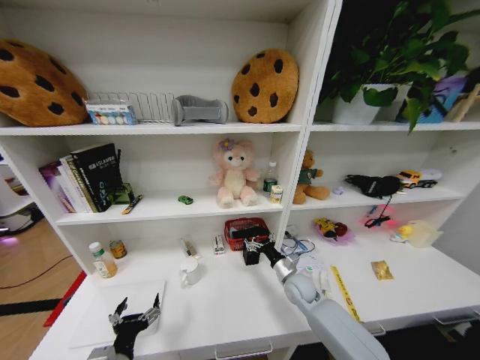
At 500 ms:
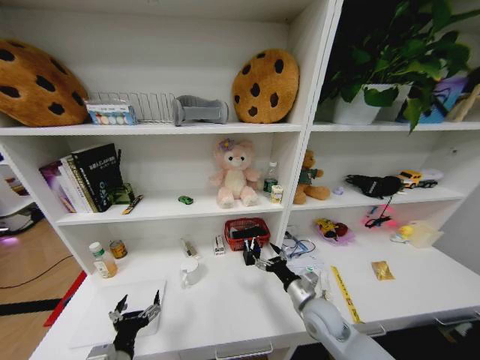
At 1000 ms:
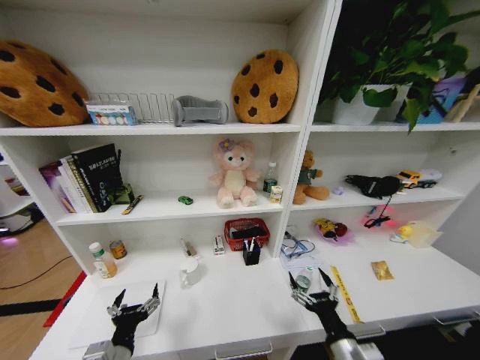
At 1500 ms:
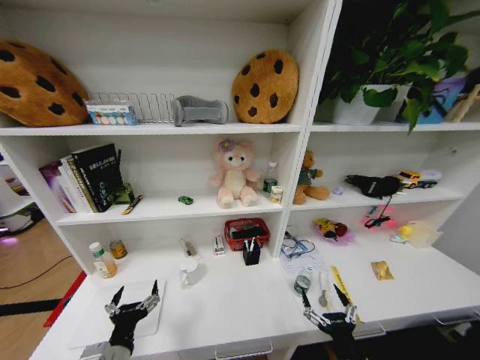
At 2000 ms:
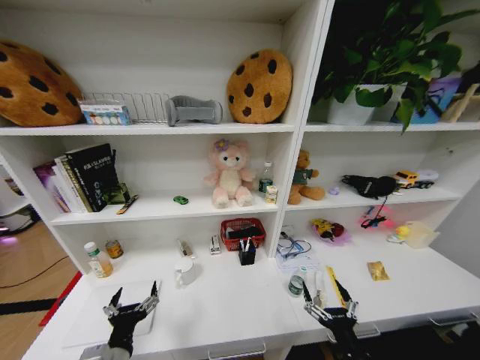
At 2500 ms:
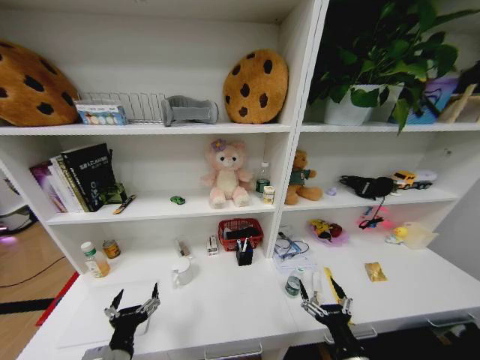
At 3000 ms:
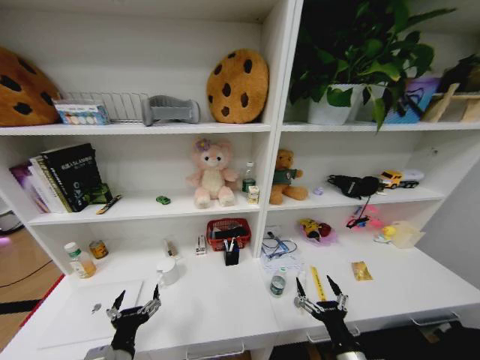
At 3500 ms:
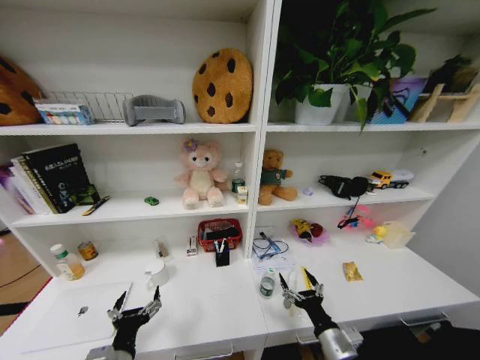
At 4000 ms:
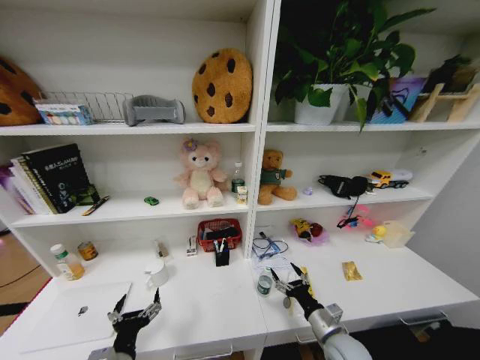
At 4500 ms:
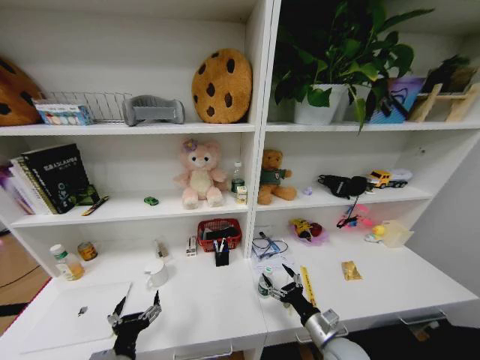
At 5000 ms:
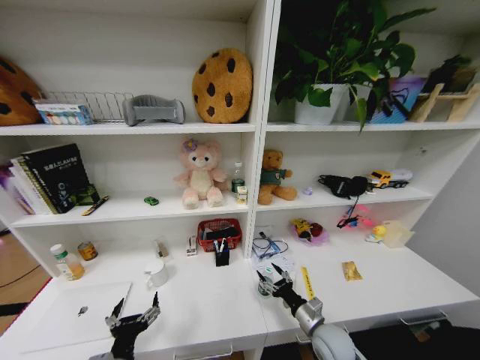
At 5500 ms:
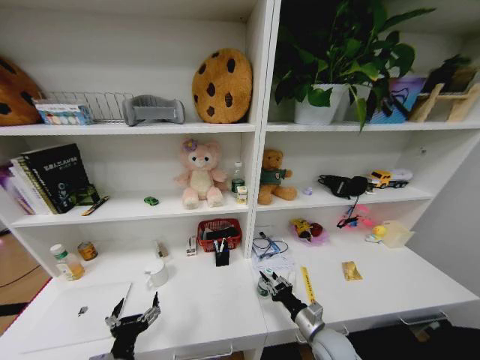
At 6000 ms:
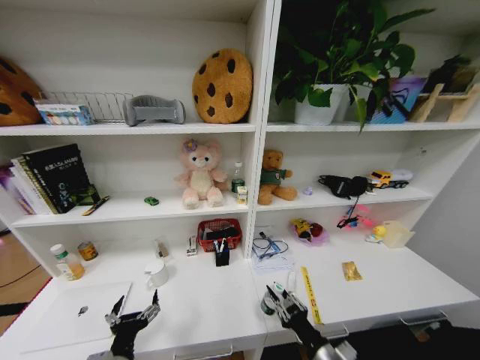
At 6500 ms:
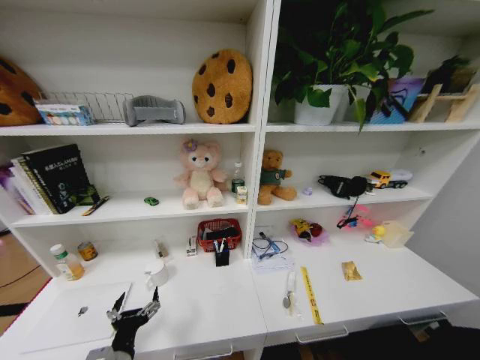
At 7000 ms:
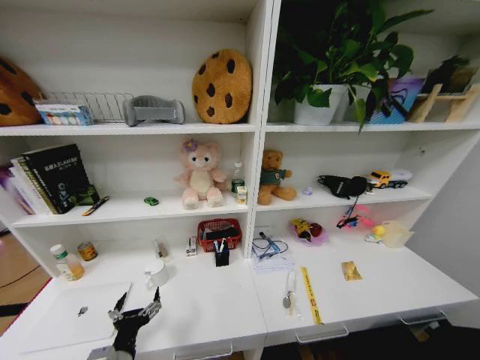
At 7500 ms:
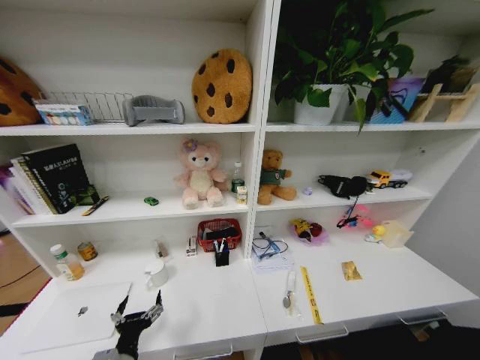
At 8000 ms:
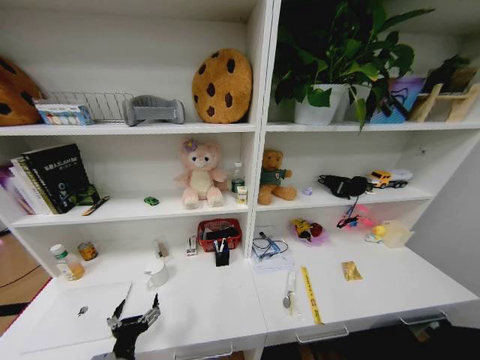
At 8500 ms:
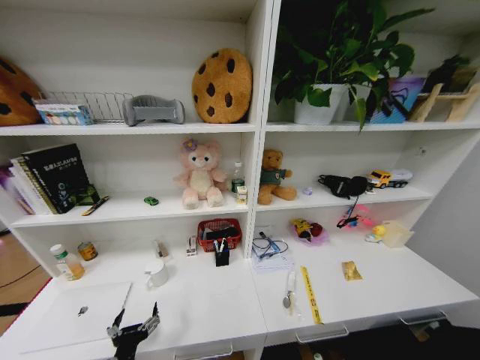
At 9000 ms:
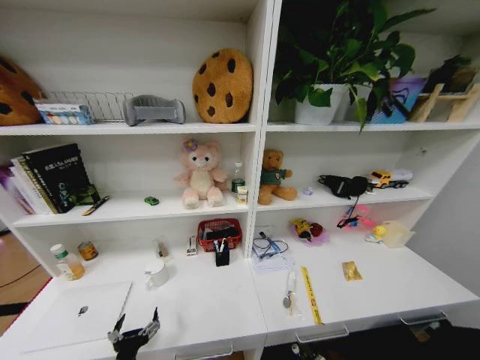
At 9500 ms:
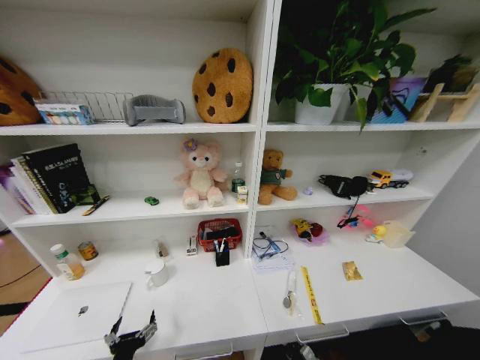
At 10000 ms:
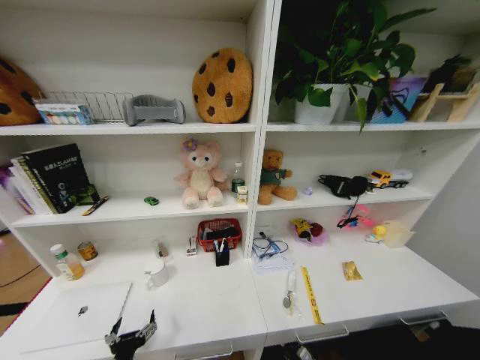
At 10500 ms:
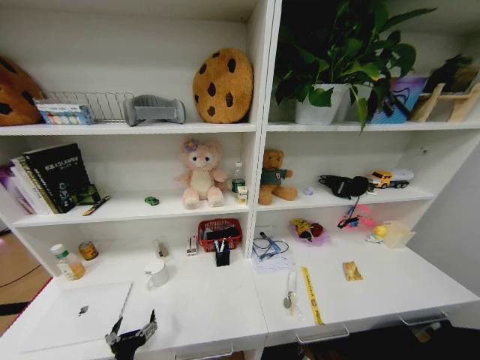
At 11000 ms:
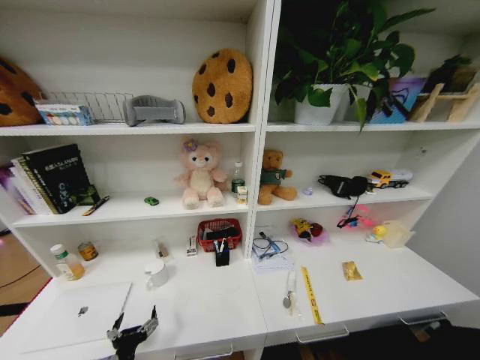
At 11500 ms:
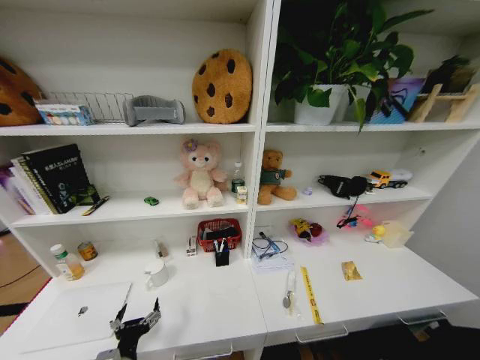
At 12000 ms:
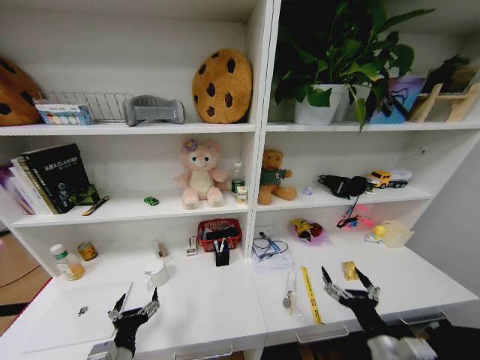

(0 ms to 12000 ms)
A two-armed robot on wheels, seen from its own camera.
Task of the whole recording: Organize the objects on the table.
0 ms - 2000 ms: The right gripper goes roughly 30 cm backward.
2000 ms - 4000 ms: The right gripper is displaced forward by about 10 cm.
4000 ms - 6000 ms: The right gripper is displaced backward by roughly 10 cm, and closes.
6000 ms - 8000 ms: The right gripper moves downward and to the right, about 25 cm, and reaches about 25 cm backward, then returns.
10000 ms - 12000 ms: The right gripper moves upward, some 40 cm, and opens its fingers.

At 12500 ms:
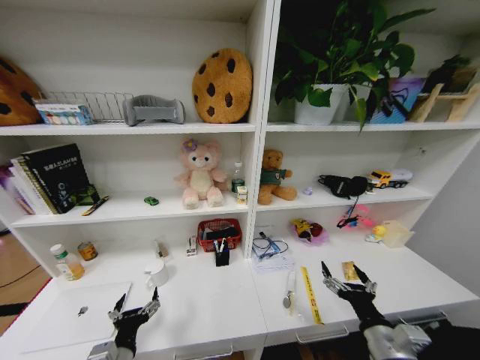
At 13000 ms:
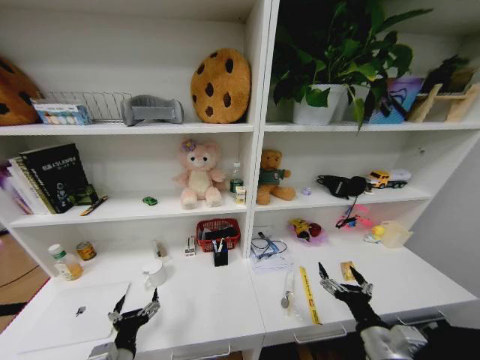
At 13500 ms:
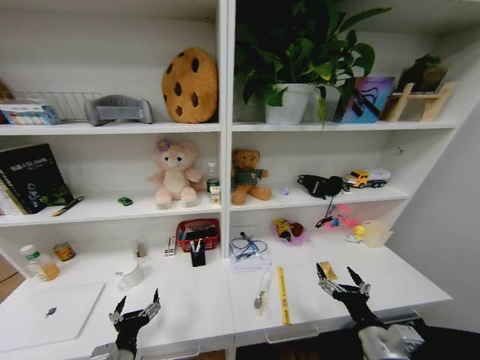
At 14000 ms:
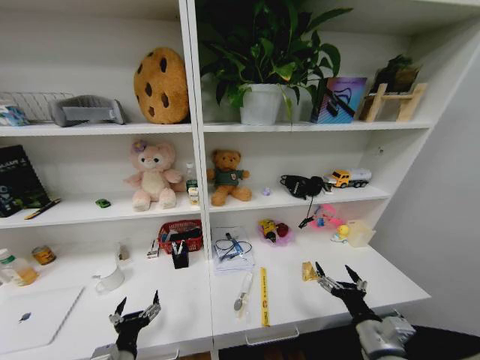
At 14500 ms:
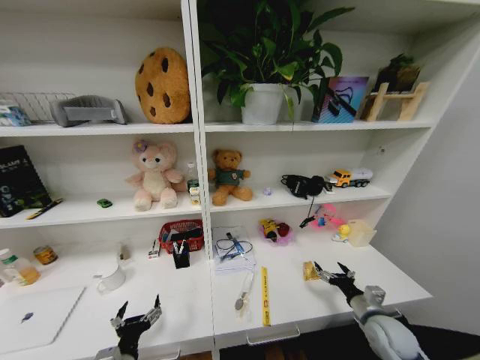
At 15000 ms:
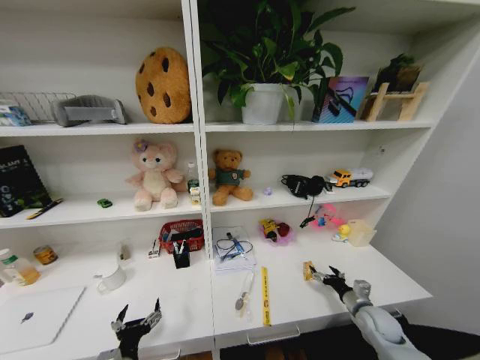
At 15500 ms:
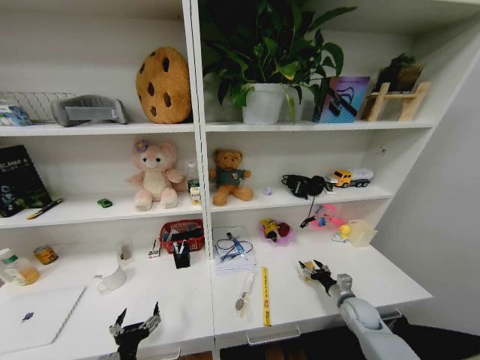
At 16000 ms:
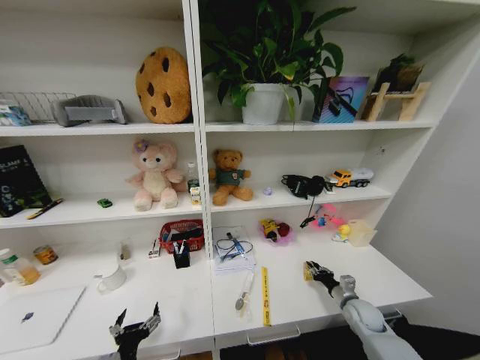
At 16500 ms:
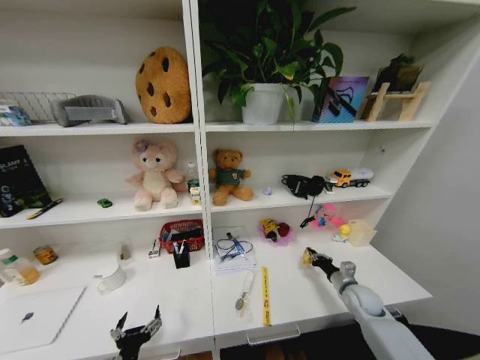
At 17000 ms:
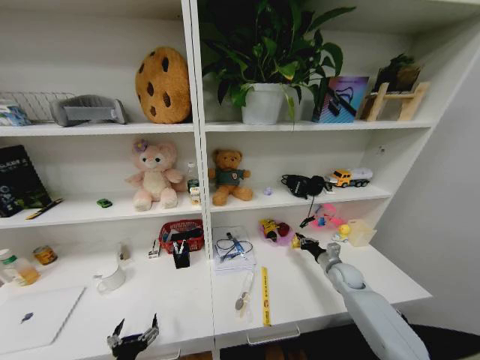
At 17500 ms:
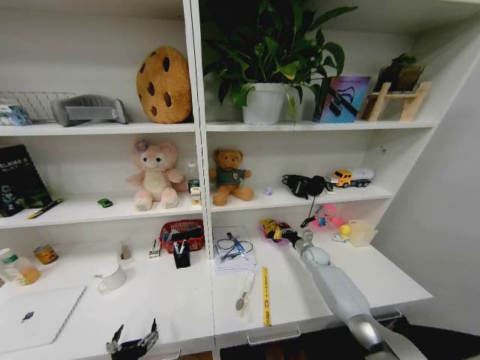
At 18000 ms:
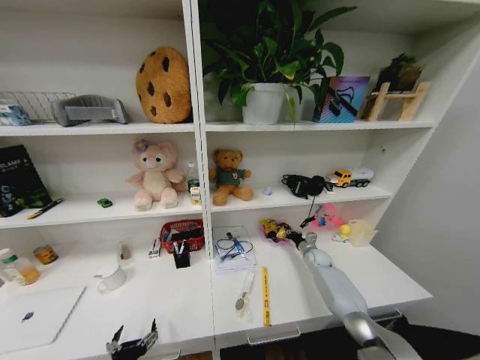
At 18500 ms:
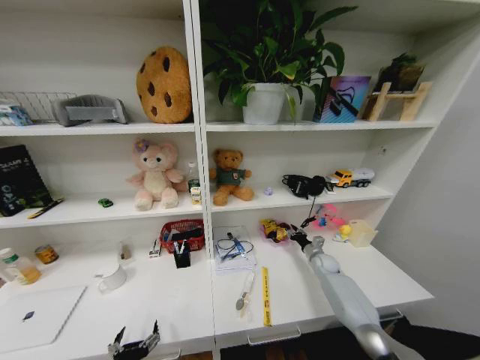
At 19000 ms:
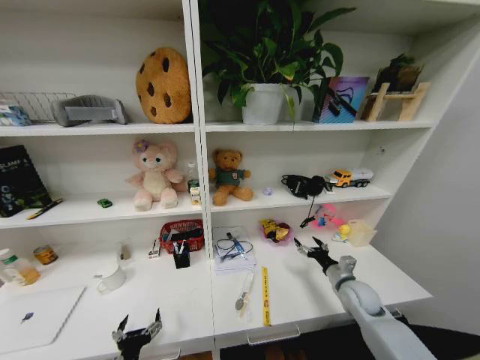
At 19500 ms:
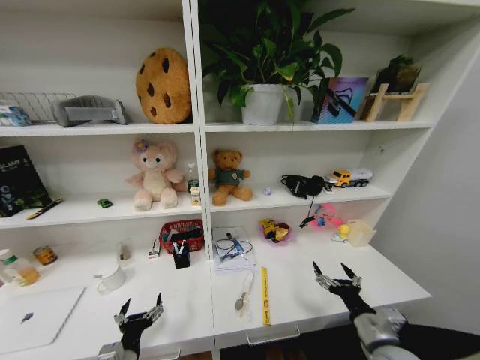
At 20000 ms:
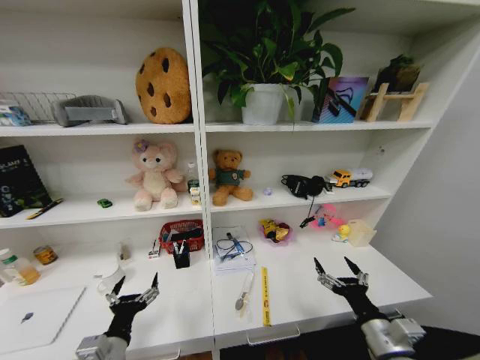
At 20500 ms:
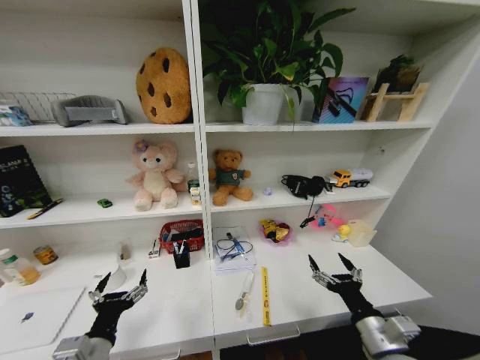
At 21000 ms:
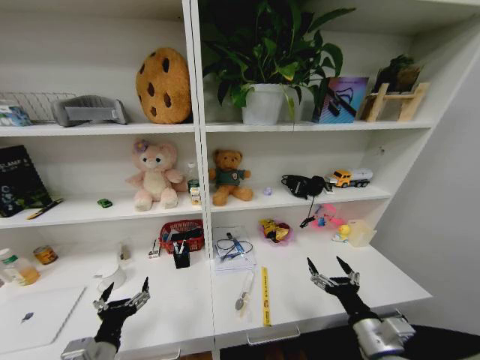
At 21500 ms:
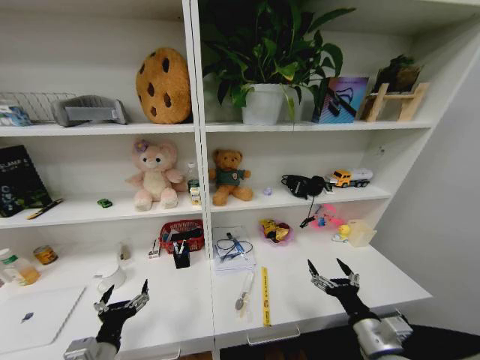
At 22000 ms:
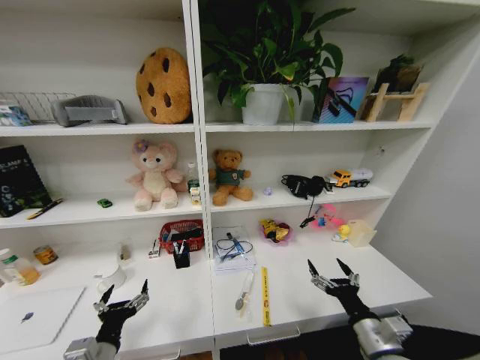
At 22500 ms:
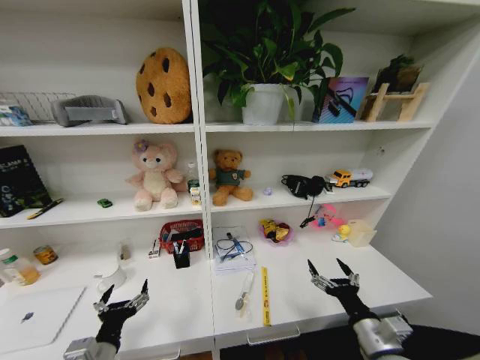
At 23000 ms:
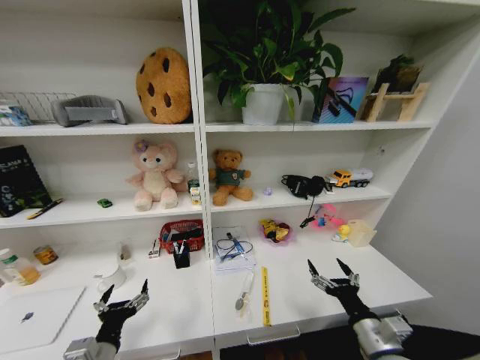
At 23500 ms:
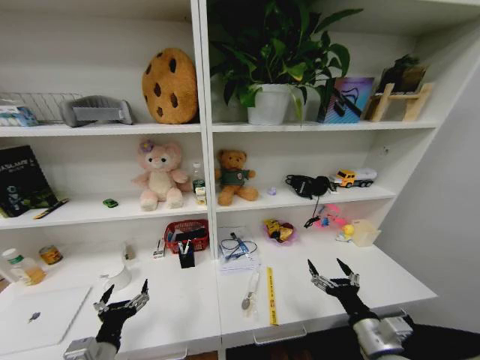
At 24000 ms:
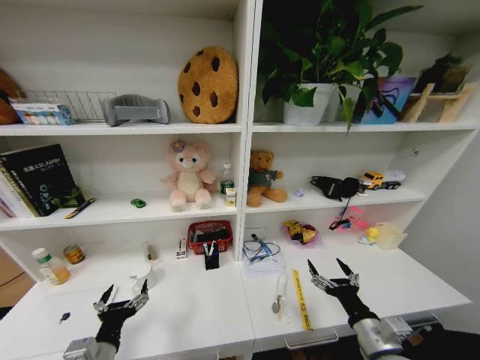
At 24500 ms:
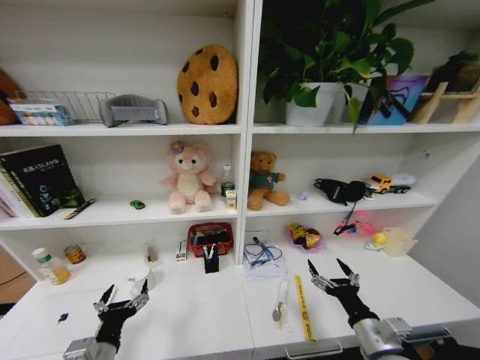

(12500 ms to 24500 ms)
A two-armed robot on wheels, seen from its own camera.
Task of the whole recording: Organize the objects on the table.
12500 ms - 14500 ms: The right gripper travels forward, to the right and downward by some 15 cm.
14500 ms - 16500 ms: The right gripper heads forward, covering about 10 cm, and closes its fingers.
16500 ms - 18500 ms: The right gripper moves forward, some 15 cm.
18500 ms - 20500 ms: The right gripper moves backward and upward, some 40 cm, and opens up. The left gripper is displaced upward by about 10 cm.
20500 ms - 22500 ms: The grippers make only small movements.
